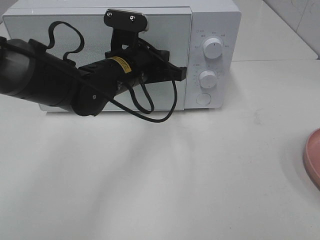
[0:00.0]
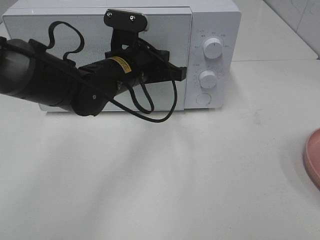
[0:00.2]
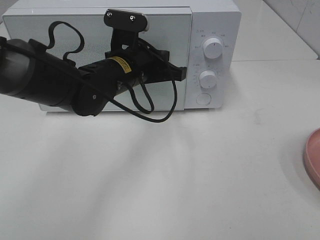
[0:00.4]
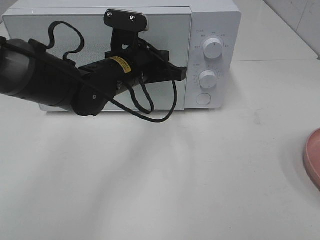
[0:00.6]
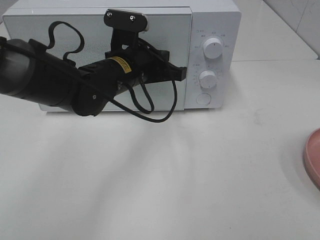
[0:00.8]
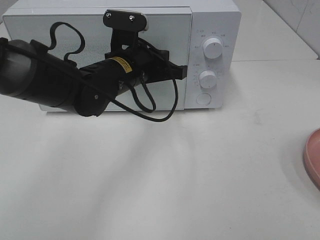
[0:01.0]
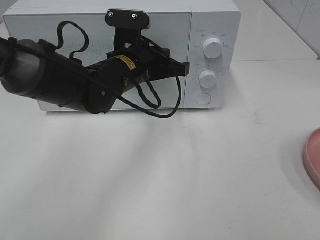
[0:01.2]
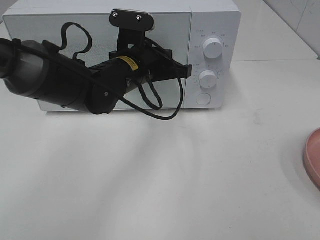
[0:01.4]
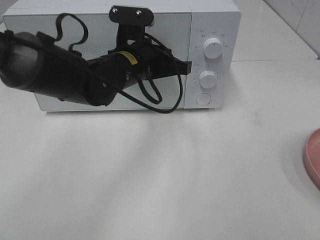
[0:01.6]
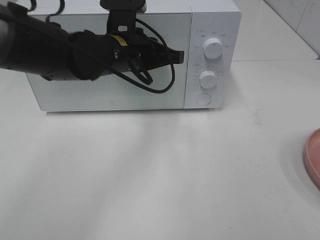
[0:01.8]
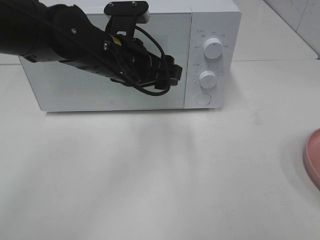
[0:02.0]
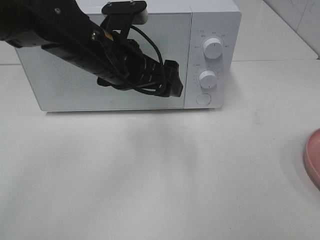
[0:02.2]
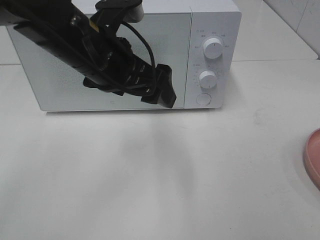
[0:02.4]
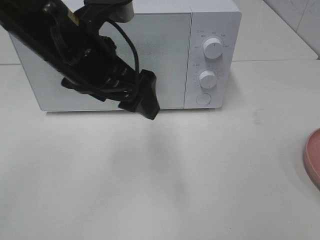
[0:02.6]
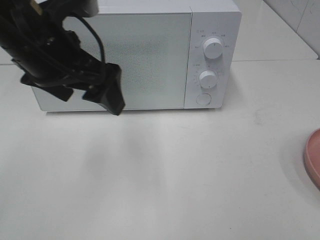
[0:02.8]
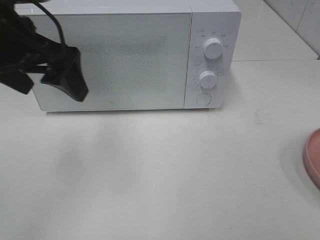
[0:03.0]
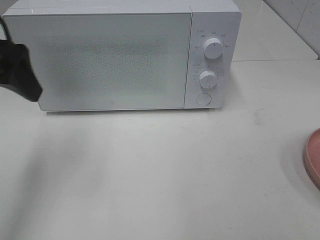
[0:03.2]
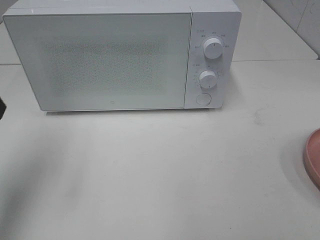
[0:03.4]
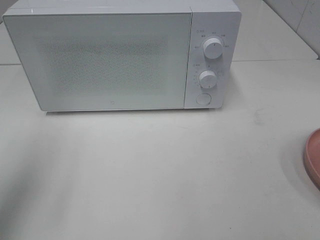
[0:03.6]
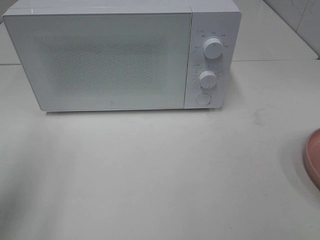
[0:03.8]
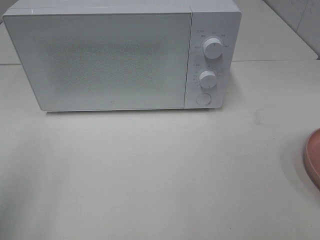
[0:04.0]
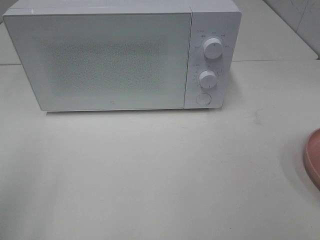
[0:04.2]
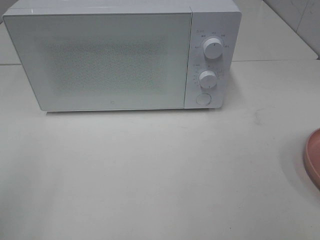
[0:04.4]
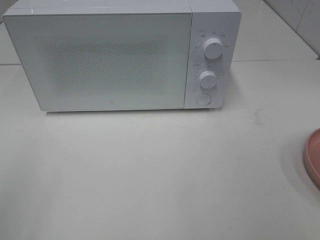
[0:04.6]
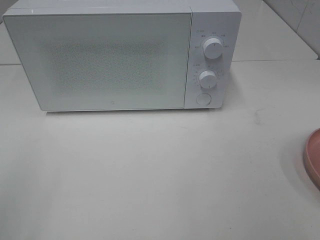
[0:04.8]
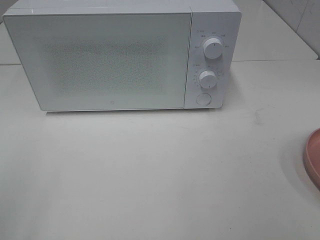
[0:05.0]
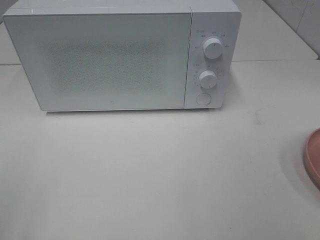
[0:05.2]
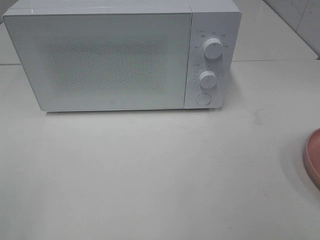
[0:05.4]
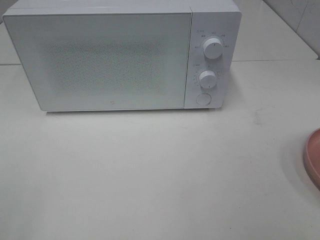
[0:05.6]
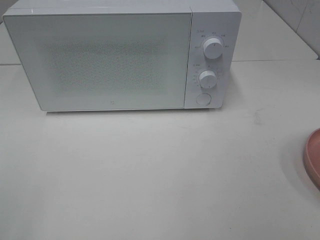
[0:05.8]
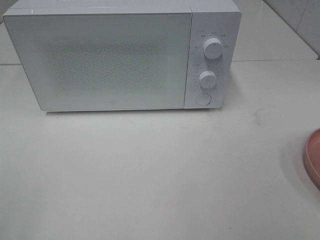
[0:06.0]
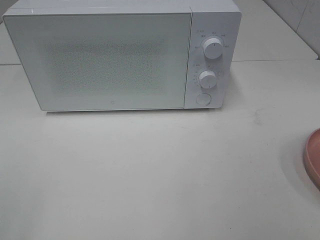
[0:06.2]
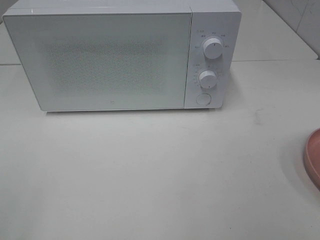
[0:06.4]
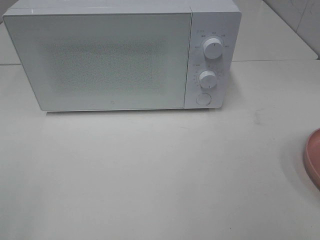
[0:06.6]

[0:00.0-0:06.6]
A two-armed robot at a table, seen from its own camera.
Task of the whole recording: Heat the burger.
0:00.0 to 0:01.6: Neither gripper changes place.
0:01.6 to 0:03.2: The left gripper moves to the left, upward and backward, approximately 25 cm, and opens.
0:03.2 to 0:05.0: The left gripper goes roughly 20 cm backward.

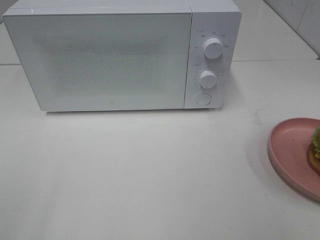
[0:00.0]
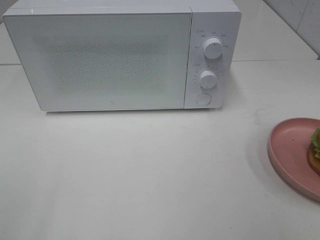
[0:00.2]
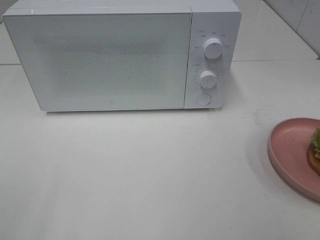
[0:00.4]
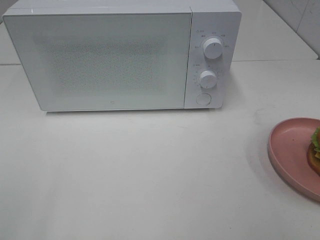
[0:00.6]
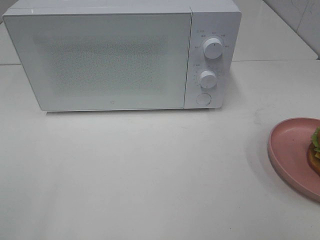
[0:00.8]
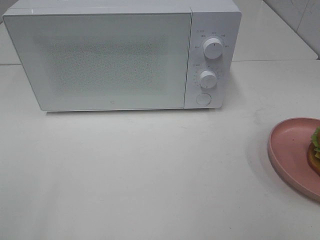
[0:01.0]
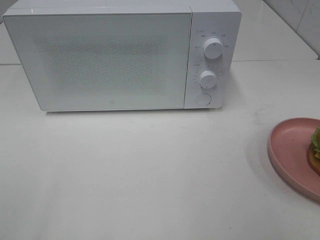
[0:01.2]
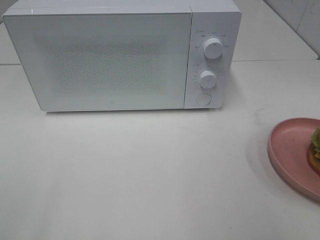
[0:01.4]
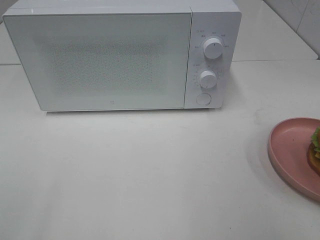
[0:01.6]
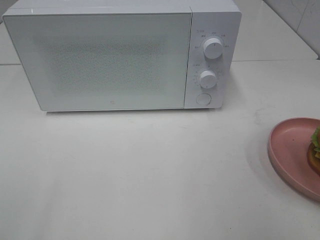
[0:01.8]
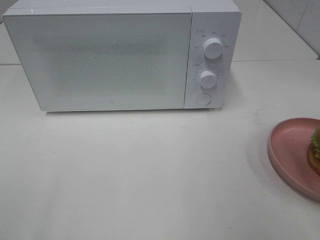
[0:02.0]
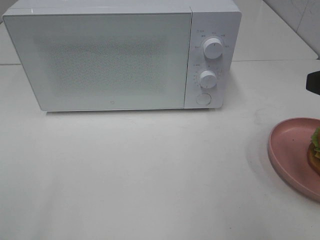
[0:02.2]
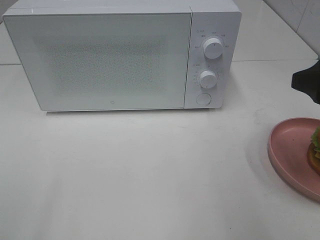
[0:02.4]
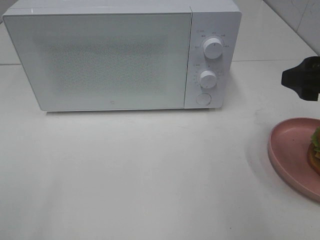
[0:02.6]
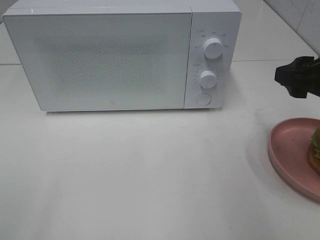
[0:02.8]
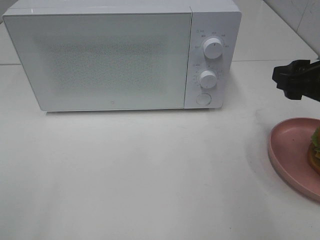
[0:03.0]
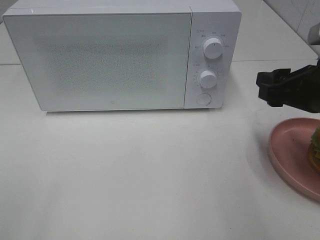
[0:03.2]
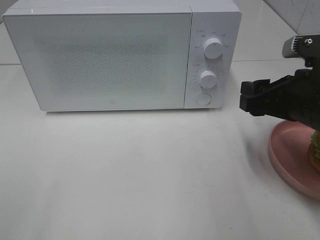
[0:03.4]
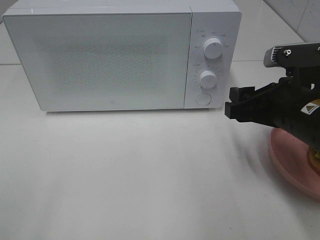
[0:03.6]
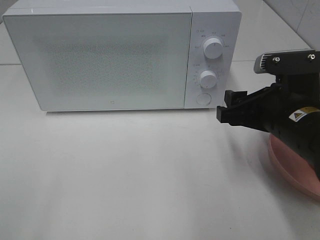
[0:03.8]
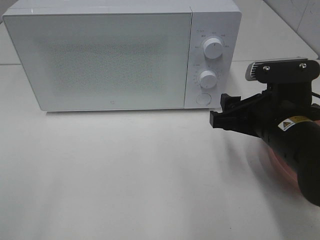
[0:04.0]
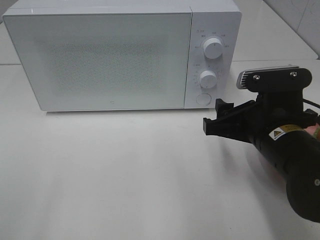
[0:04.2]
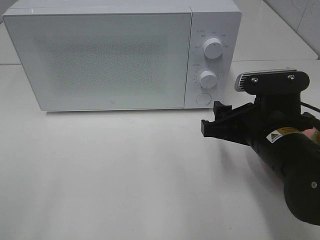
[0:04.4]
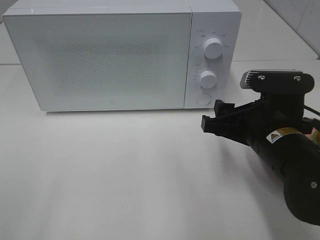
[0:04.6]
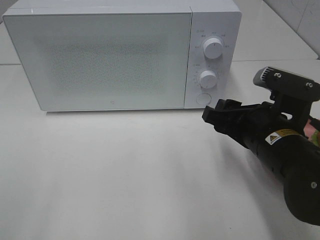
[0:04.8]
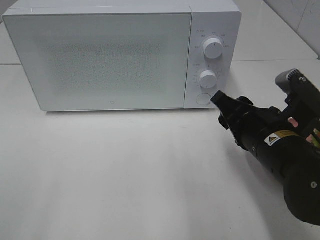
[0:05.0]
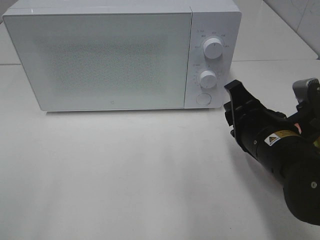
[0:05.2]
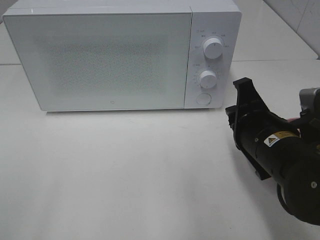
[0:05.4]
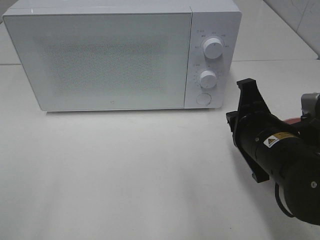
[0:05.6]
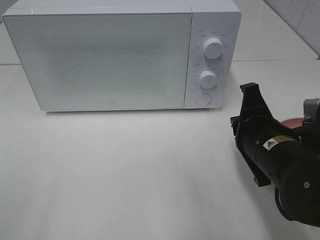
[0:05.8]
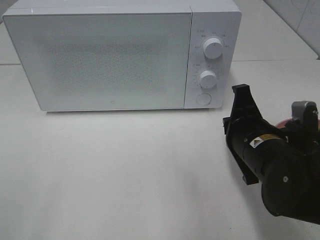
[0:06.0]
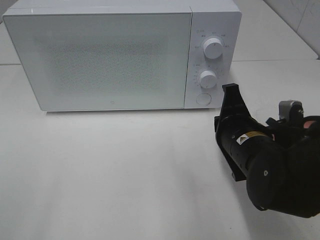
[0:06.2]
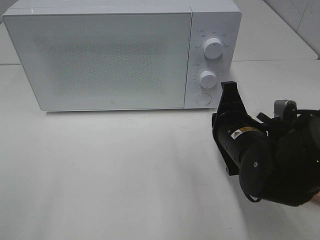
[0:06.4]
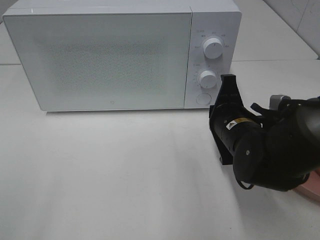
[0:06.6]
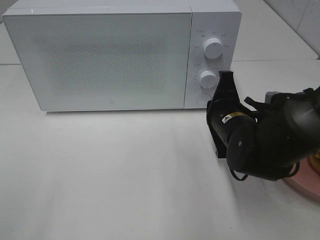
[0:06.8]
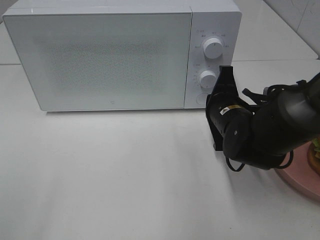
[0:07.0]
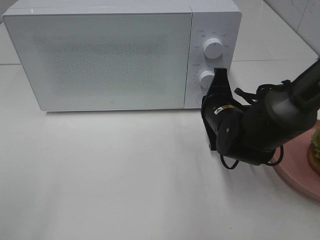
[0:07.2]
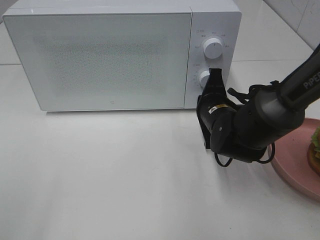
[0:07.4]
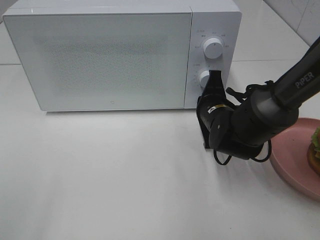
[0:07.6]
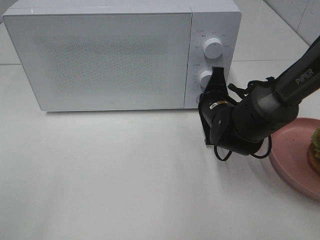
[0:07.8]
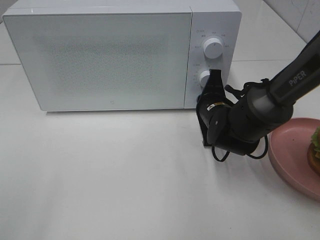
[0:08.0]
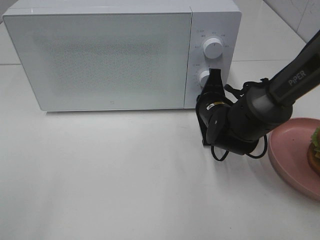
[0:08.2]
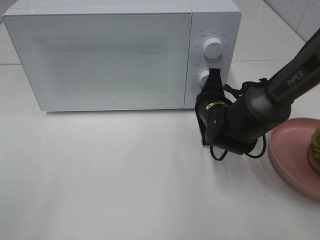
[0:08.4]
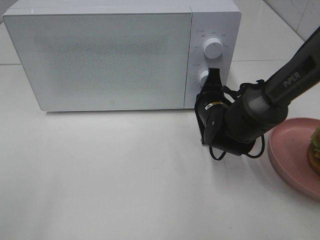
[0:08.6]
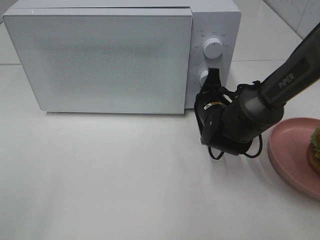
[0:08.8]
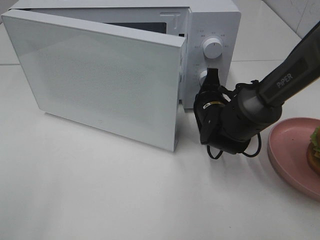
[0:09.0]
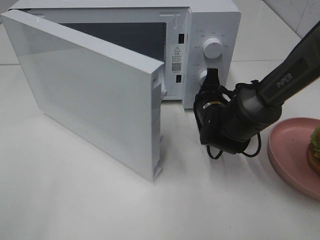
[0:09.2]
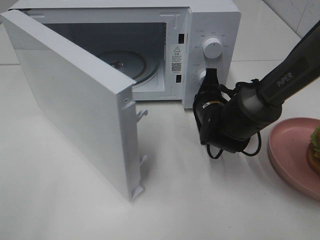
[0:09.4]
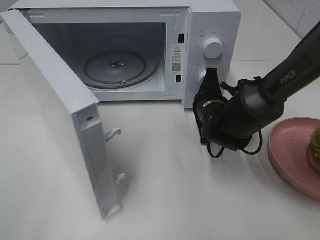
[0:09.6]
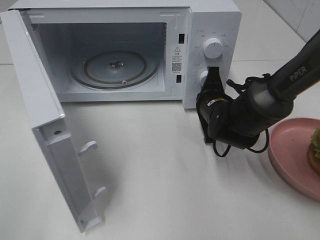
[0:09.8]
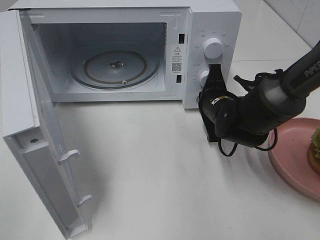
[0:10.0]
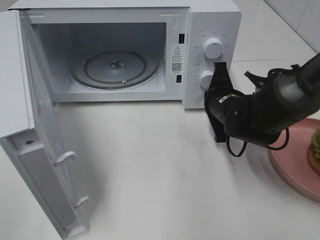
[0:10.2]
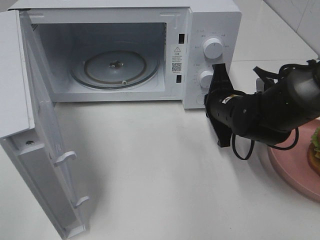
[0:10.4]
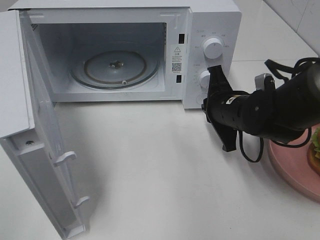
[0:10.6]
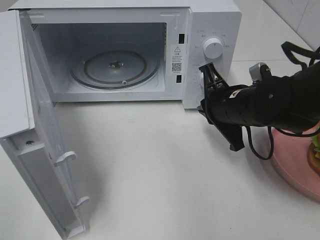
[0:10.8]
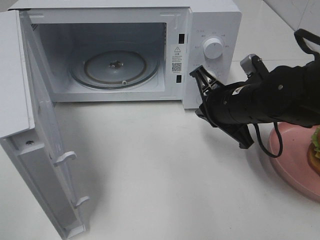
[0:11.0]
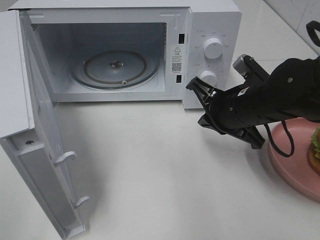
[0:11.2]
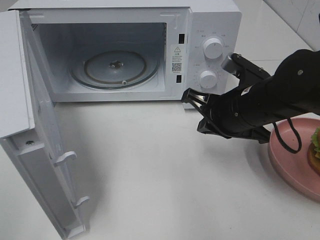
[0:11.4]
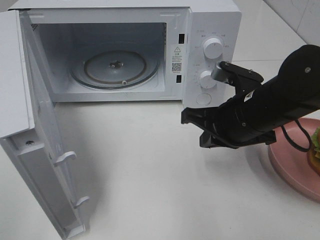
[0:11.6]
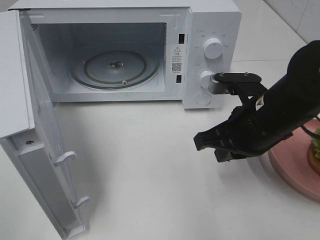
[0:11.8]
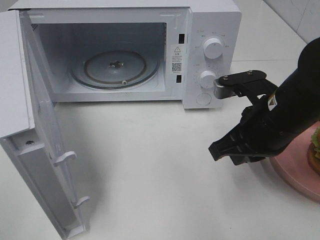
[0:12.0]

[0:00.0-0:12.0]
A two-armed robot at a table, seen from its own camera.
Task of the whole recording: Heat the burger.
Step, 0:00.0 to 0:10.2: Right hand: press the switch.
0:01.6 to 0:03.0: The right gripper heads forward and downward, covering some 15 cm.
0:03.0 to 0:04.4: The right gripper goes roughly 10 cm to the left and downward.
0:04.4 to 0:06.0: The right gripper closes up.
0:06.0 to 0:07.6: The right gripper heads forward, covering roughly 10 cm.
0:07.6 to 0:09.0: The grippers make only small movements.
0:10.4 to 0:12.0: The right gripper travels backward and upward by roughly 10 cm.

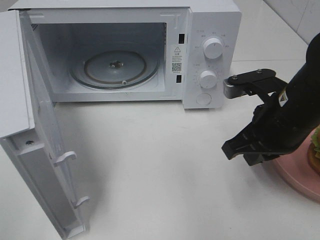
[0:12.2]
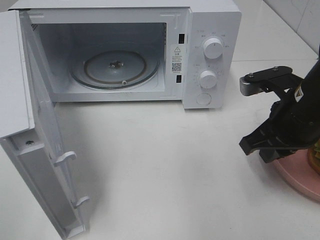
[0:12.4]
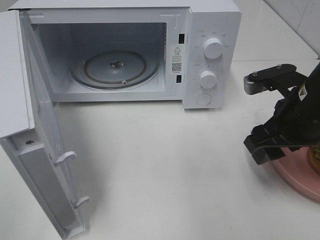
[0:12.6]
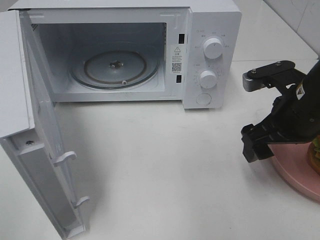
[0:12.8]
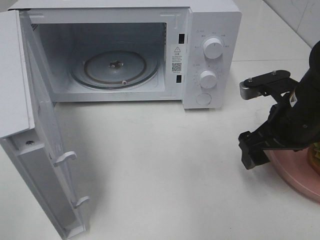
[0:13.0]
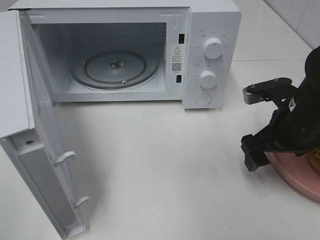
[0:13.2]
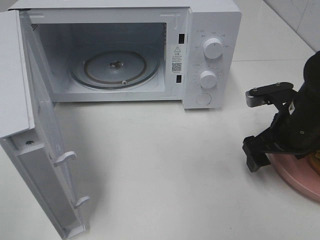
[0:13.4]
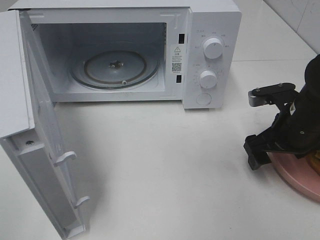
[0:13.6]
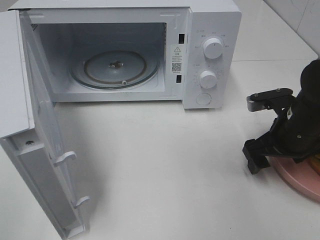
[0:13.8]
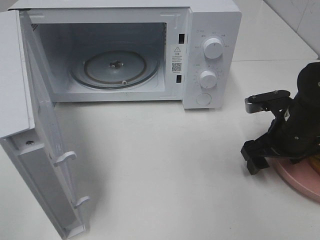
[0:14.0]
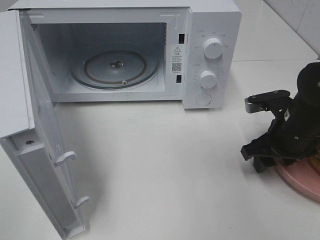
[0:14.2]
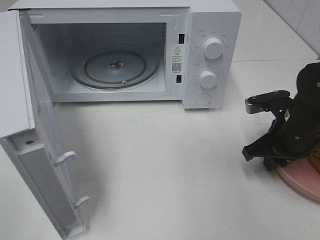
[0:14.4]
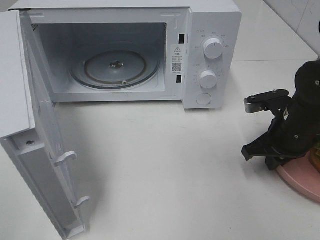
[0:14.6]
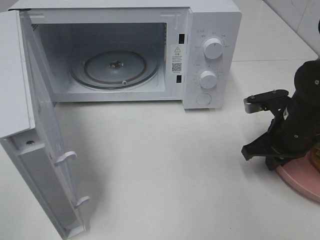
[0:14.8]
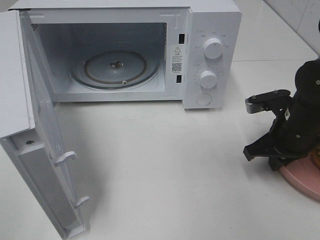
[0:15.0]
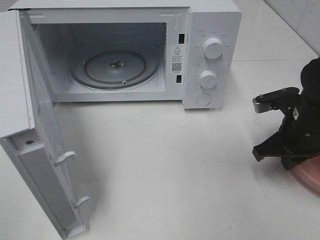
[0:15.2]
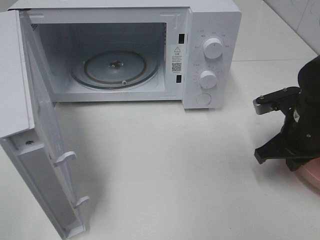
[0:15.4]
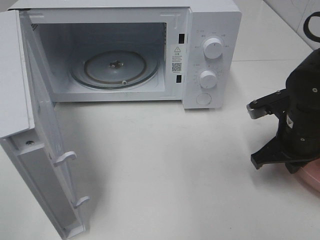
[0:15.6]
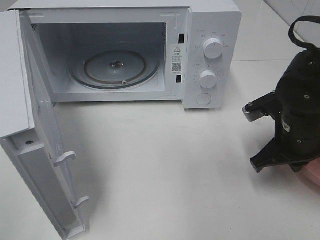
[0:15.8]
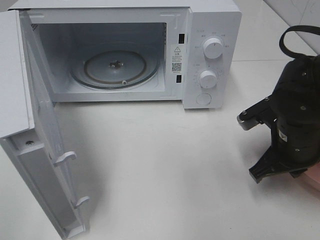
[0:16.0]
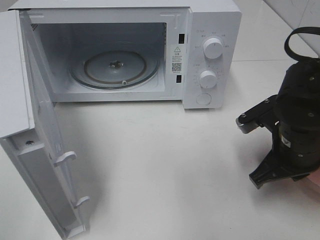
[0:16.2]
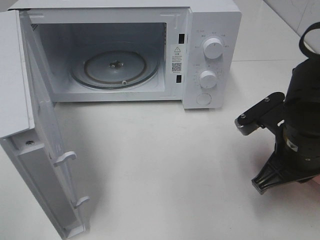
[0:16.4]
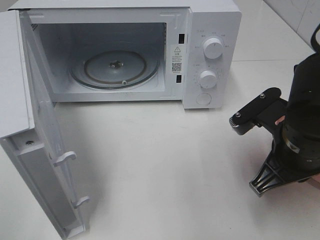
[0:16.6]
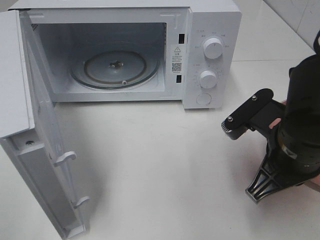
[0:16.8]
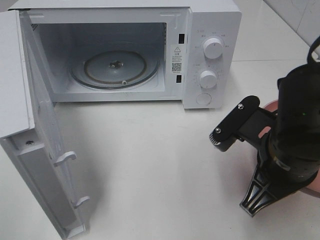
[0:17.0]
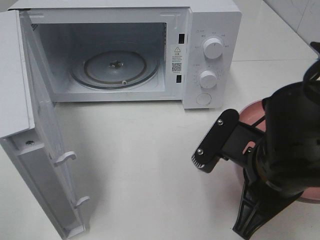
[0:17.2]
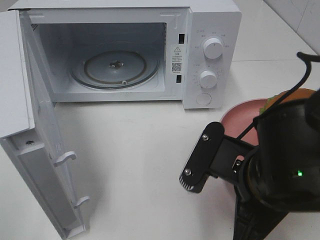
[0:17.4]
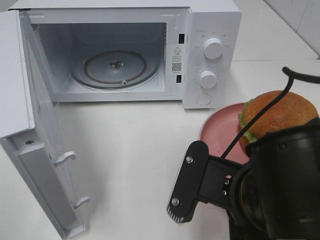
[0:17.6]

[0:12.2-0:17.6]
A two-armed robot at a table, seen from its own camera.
Task of the whole recording: Heat the burger.
Step, 0:12.2 to 0:15.2: Right hand: grab the plate with the hamburger.
0:12.2 to 0:13.6: The right gripper goes about 10 cm downward and to the right, and opens its fingers.
0:13.6 to 0:15.0: The right gripper closes its fingers.
0:15.0 to 0:16.2: The right gripper is displaced backward by about 5 cm.
0:16.2 to 0:17.6: The right gripper moves backward and to the left, approximately 15 cm.
